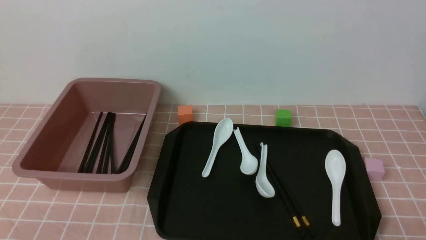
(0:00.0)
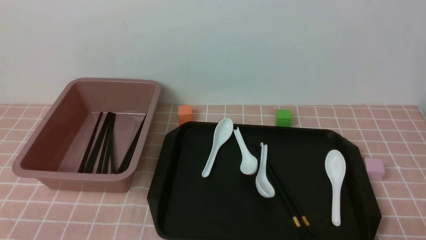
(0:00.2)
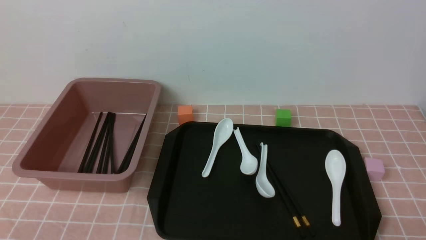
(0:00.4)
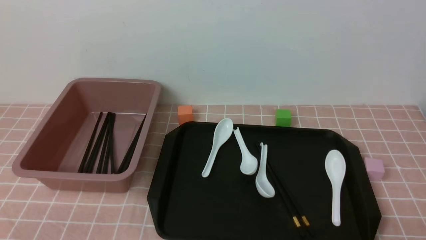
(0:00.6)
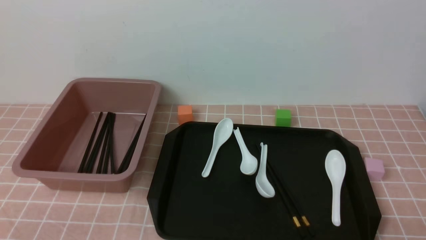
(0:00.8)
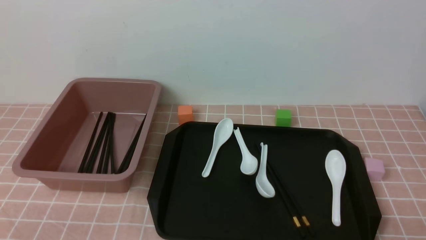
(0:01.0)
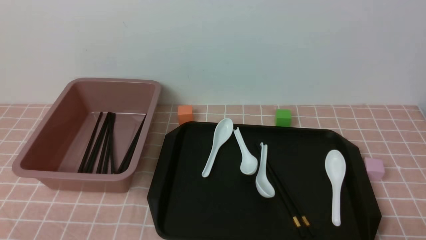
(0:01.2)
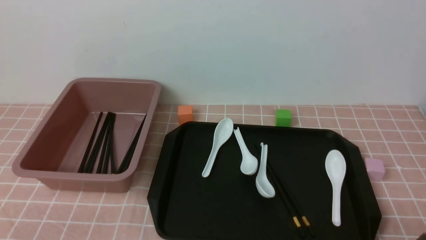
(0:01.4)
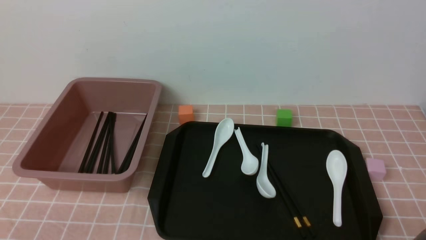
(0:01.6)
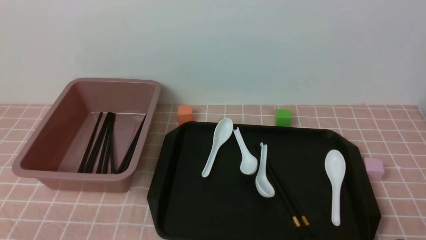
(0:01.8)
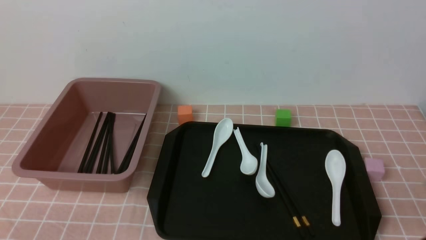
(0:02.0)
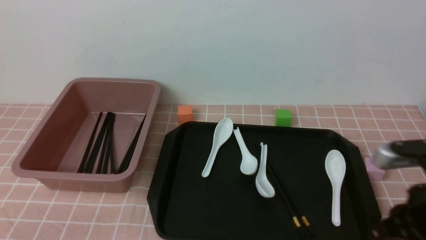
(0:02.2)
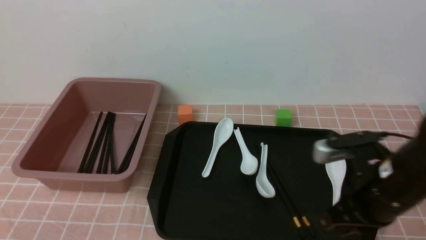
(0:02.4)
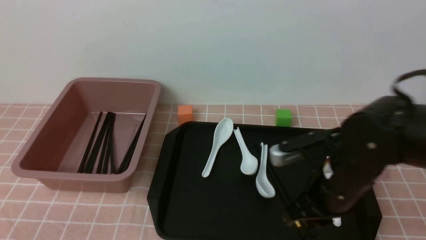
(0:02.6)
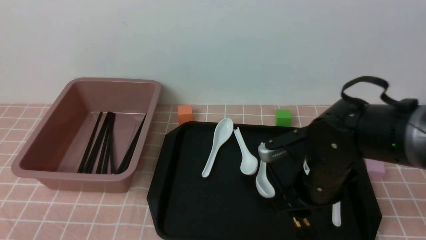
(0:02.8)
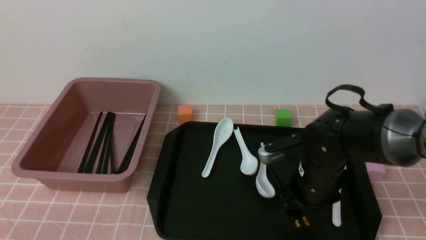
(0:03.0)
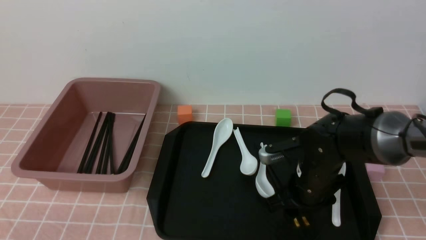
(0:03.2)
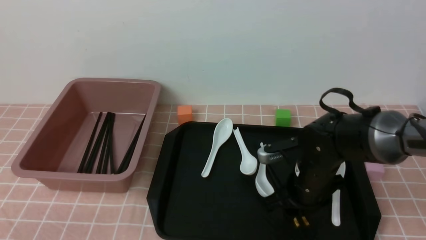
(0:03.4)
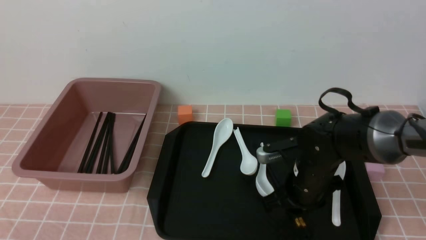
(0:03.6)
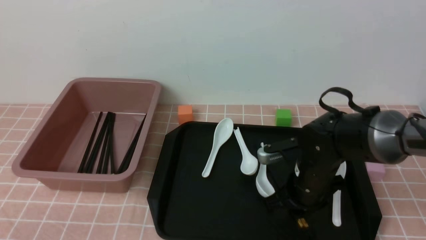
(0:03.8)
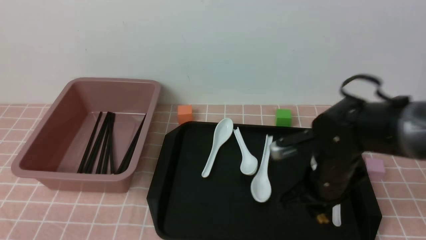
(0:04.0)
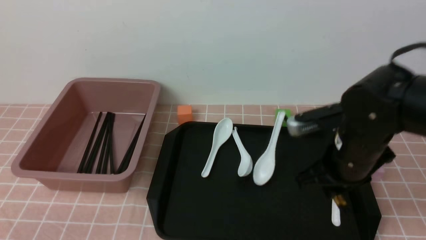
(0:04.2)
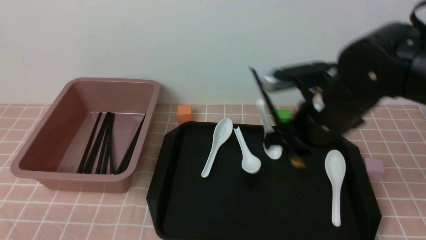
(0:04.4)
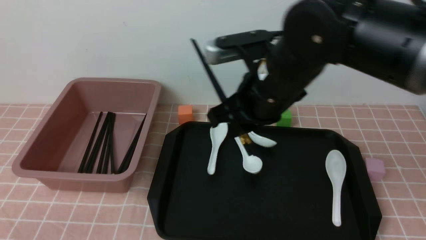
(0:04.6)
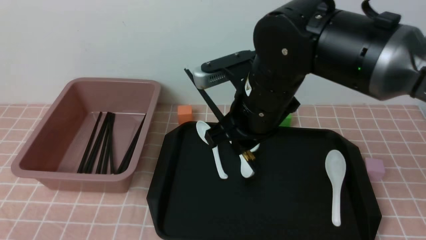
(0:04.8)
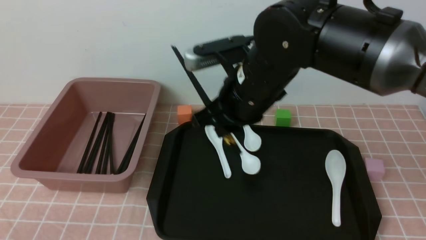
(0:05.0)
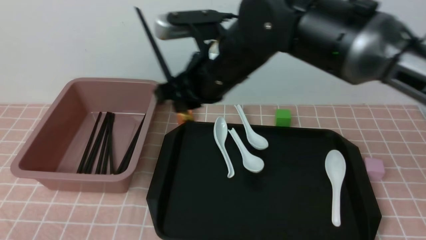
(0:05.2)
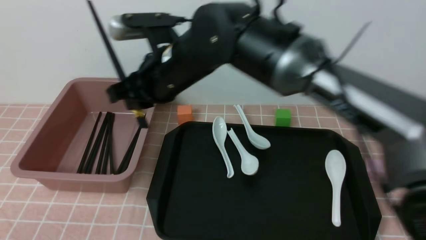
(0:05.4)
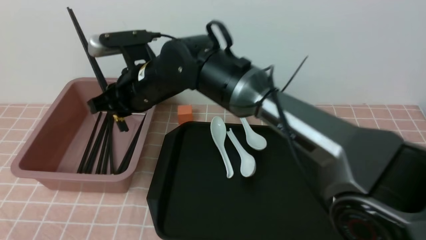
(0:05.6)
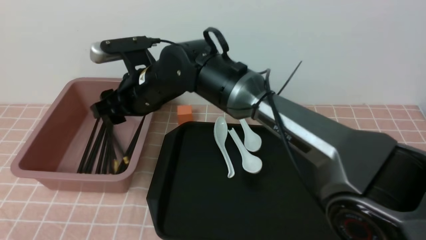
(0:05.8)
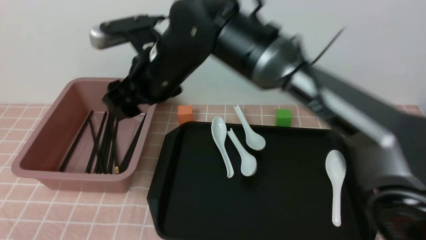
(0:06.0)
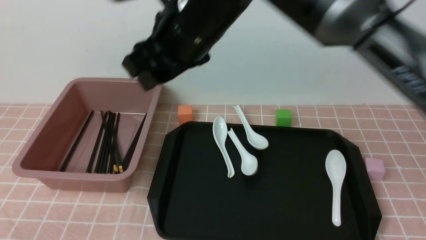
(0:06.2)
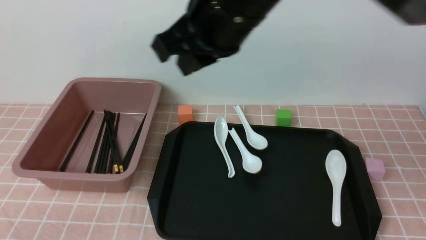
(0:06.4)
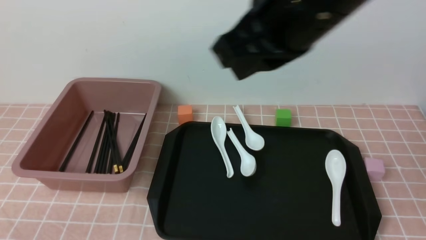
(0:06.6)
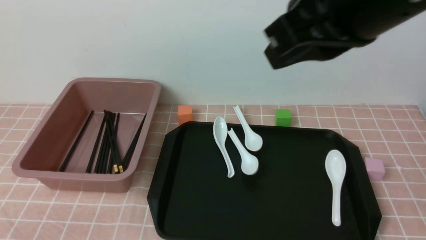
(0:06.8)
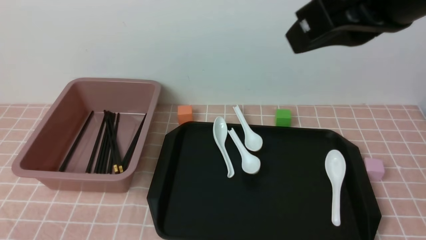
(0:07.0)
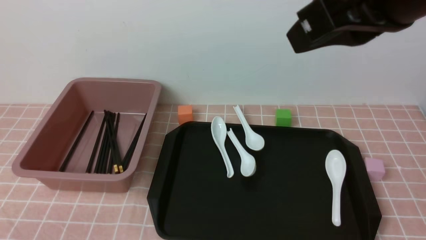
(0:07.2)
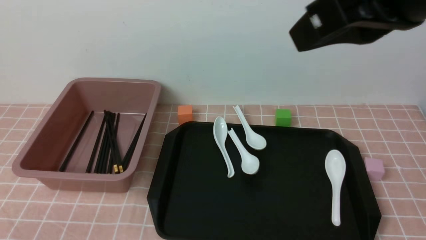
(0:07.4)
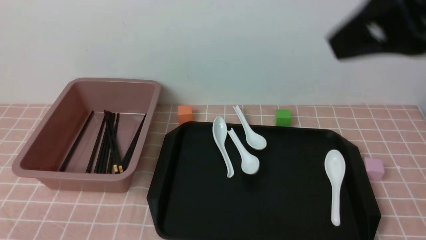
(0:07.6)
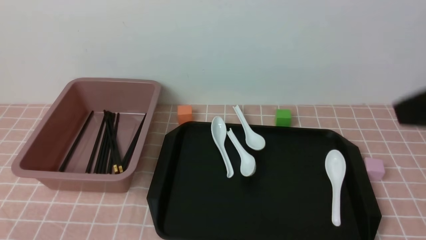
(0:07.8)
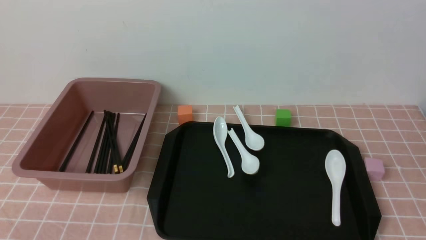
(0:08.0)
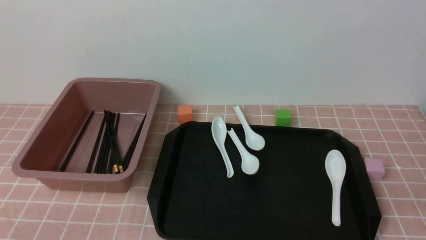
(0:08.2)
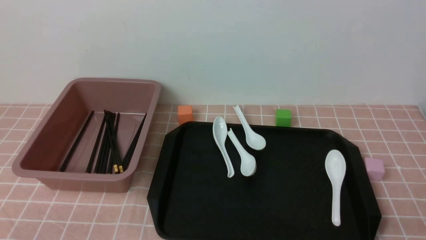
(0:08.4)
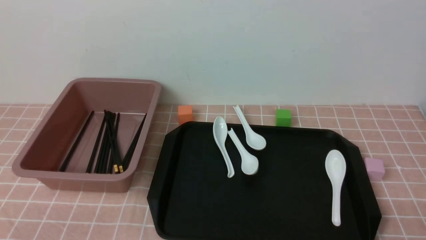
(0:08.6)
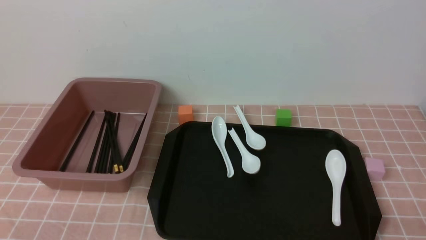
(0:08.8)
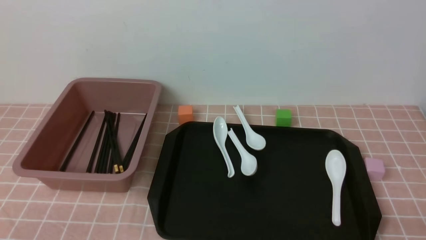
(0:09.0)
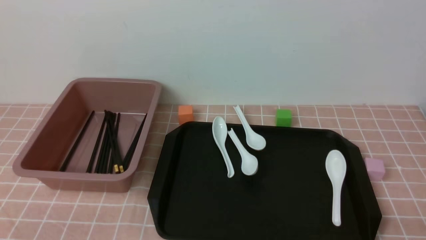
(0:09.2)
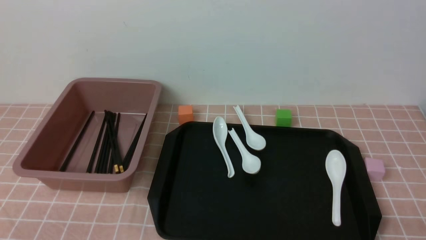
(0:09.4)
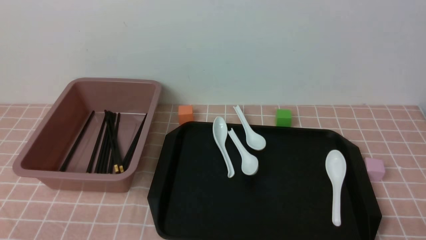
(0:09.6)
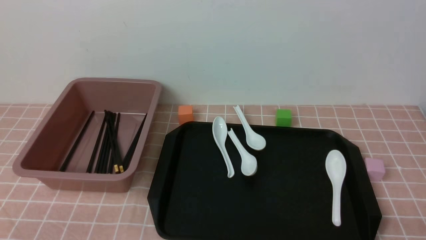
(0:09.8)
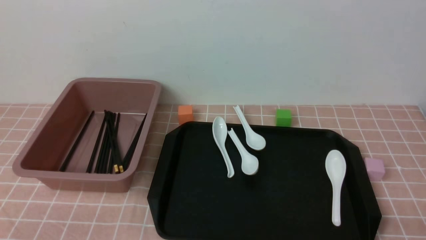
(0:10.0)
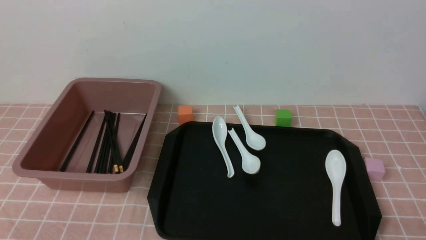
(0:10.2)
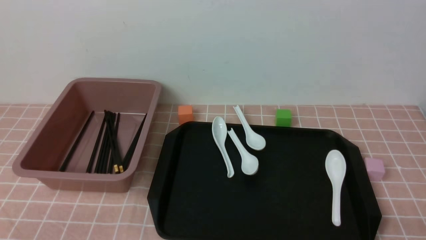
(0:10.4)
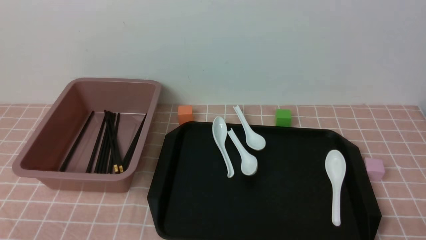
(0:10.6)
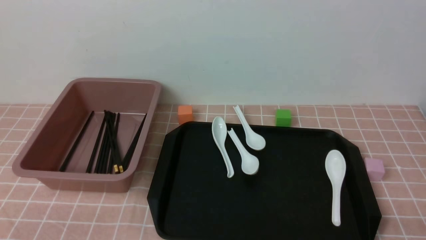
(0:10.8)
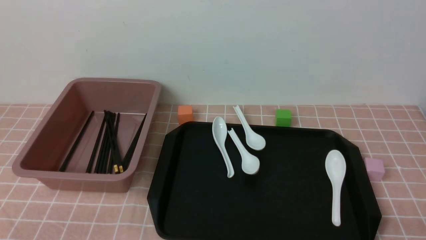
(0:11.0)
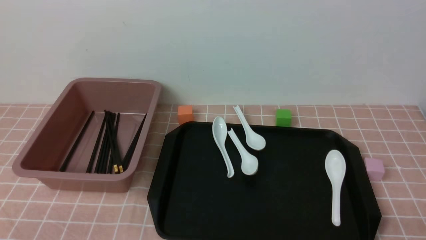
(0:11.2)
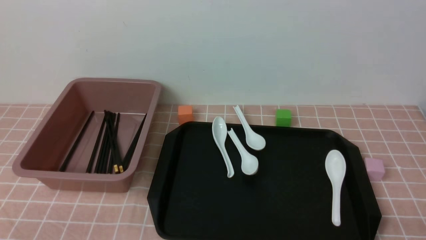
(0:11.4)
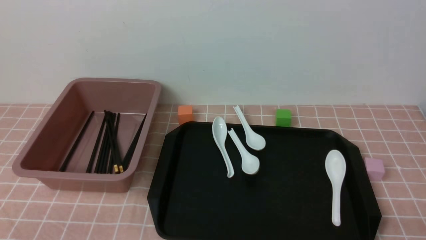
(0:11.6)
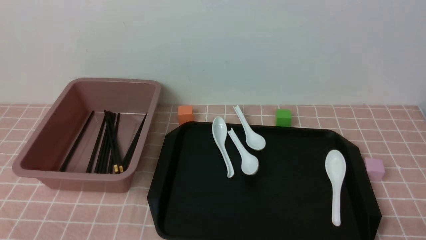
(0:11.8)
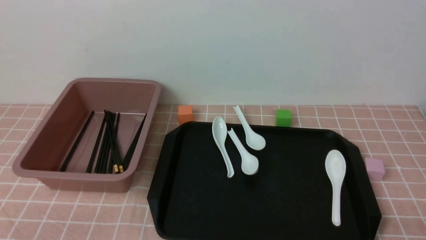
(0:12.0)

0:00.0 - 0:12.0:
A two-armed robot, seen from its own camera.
Step, 0:00.0 - 0:04.2: use the right arm to grab a pair of chopsticks.
Step, 0:04.6 - 0:06.2: use the right arm to put the chopsticks into the lunch box.
0:00.0 - 0:01.6: The right gripper moves some 5 cm.
0:01.6 - 0:03.0: The right gripper shifts roughly 30 cm forward and to the left, and opens its fingers.
0:03.0 - 0:04.4: The right gripper shifts roughly 15 cm upward, and closes its fingers.
0:04.4 - 0:06.0: The right gripper shifts roughly 15 cm to the left, and opens.
0:06.0 - 0:07.6: The right gripper shifts approximately 30 cm to the right, backward and upward, and closes its fingers.
0:07.6 - 0:09.0: The right gripper moves downward and to the right, some 35 cm.
0:09.0 - 0:12.0: The two grippers keep their place.
